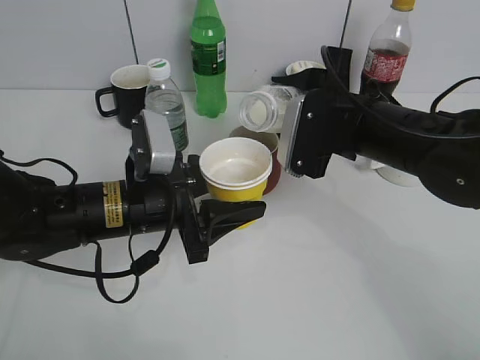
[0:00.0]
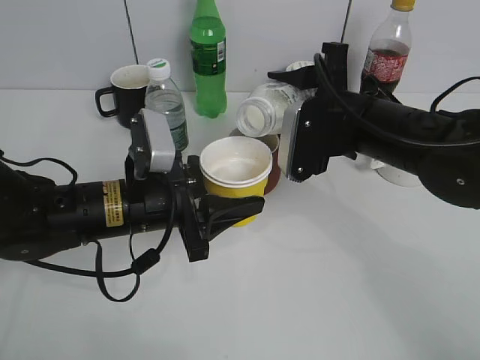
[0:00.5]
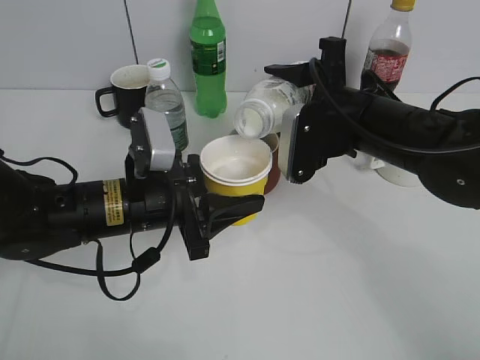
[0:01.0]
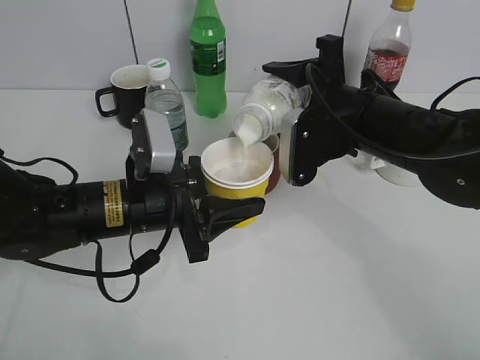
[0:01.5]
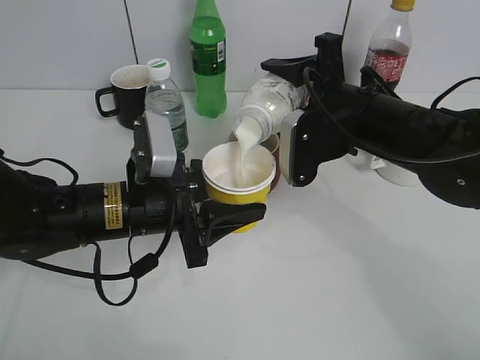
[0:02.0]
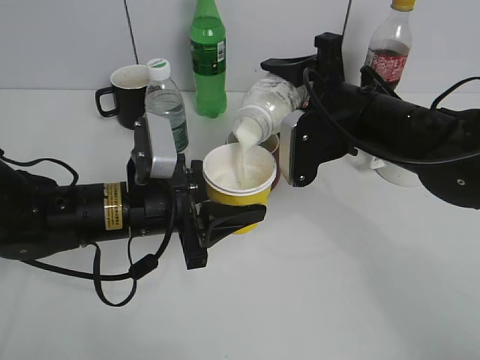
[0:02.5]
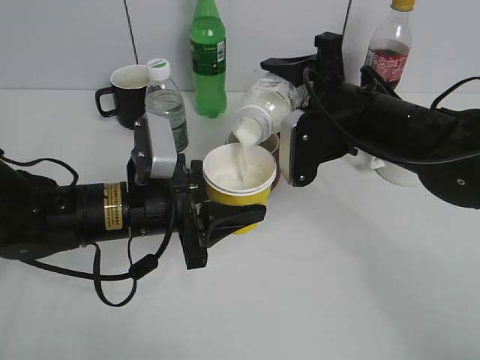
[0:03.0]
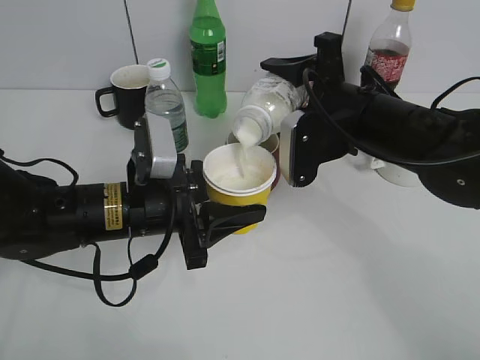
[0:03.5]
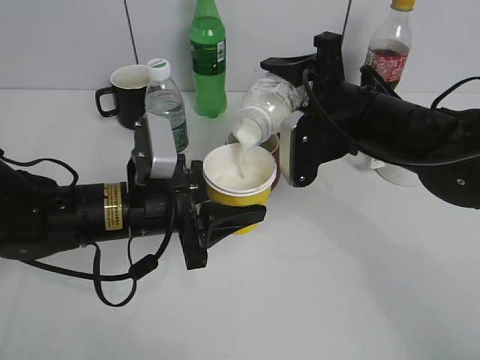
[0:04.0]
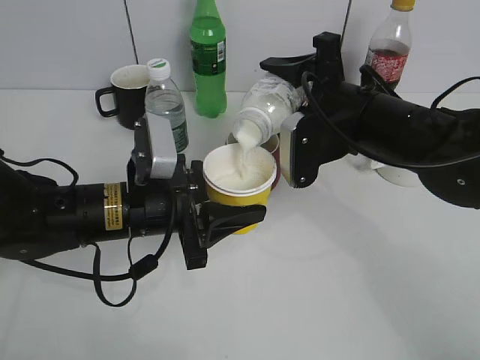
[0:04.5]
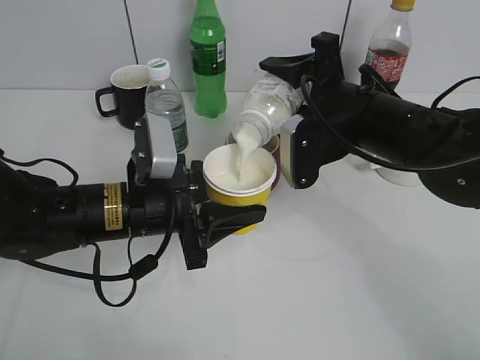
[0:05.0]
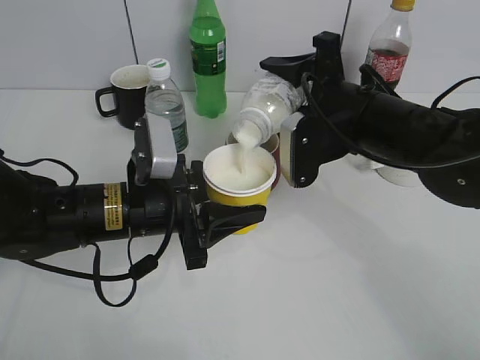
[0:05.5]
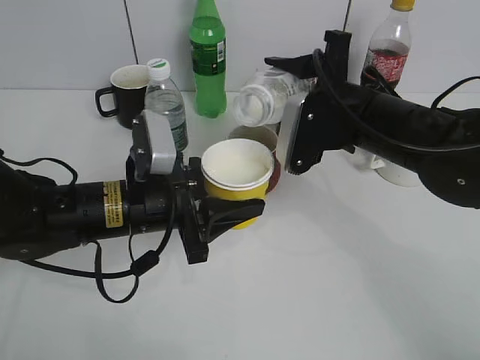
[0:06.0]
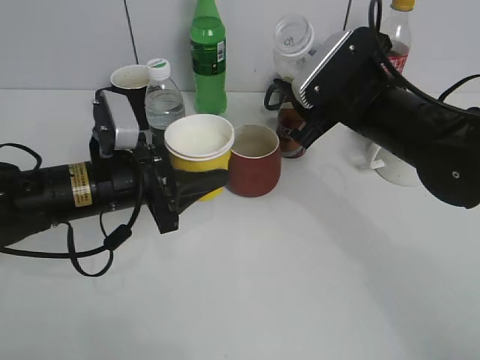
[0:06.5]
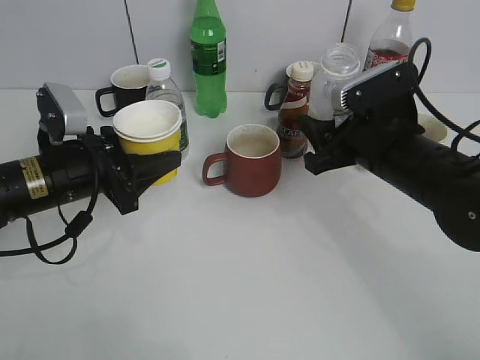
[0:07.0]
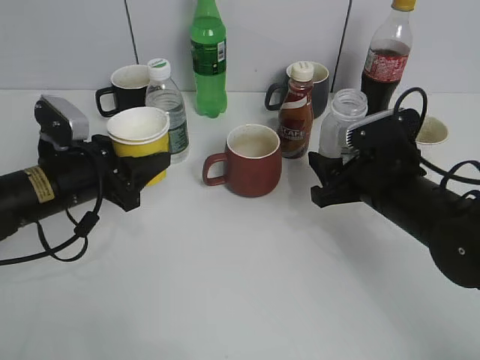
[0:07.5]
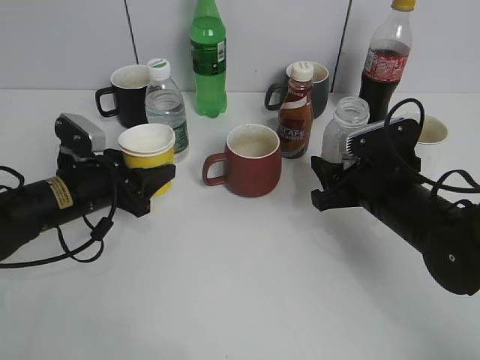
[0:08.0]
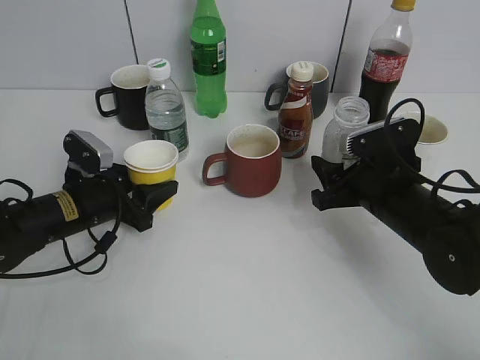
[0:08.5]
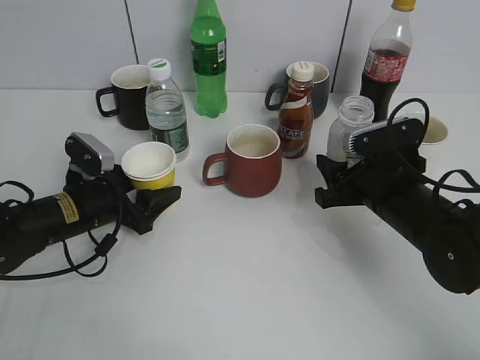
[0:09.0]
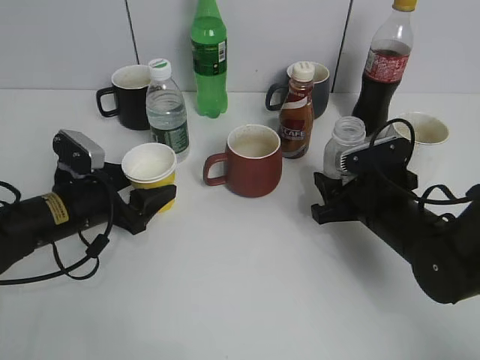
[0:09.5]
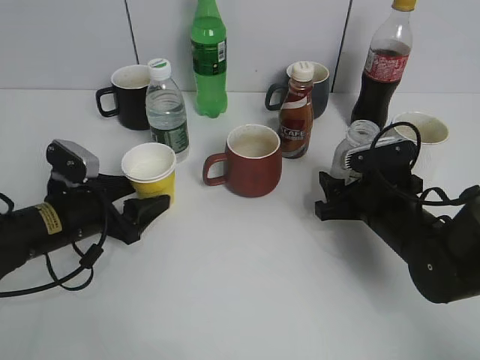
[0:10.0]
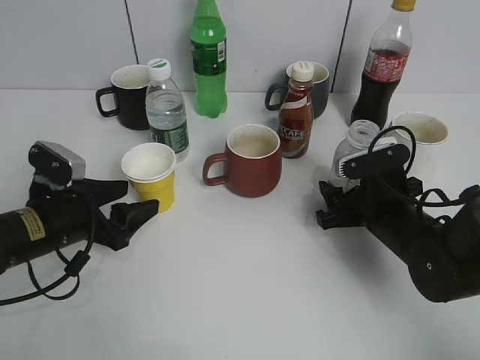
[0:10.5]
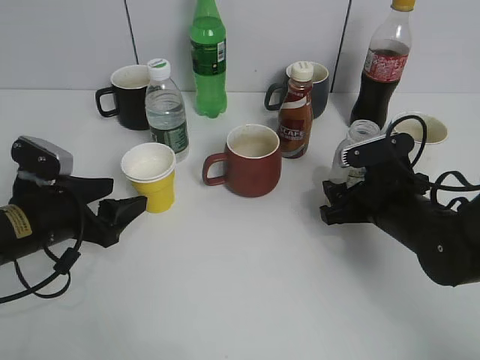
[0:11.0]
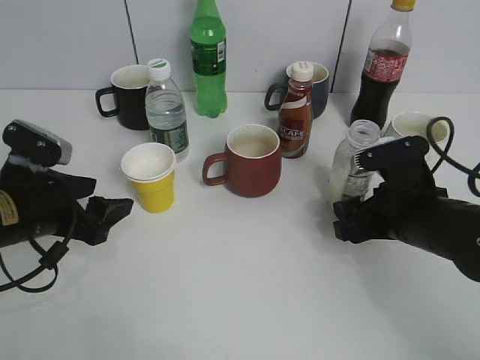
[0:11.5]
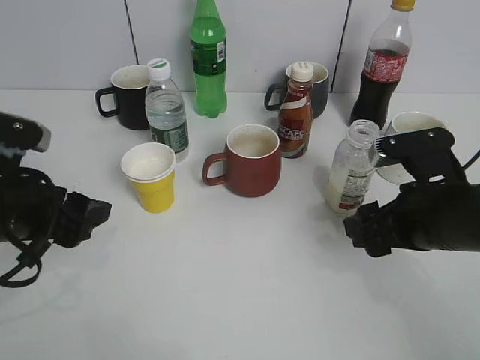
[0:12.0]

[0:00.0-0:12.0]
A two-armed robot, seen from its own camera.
Step, 0:00.0 to 0:05.5: Pour the yuexian Milk from bottle to cup with right gripper.
Step, 0:06.0 to 0:11.5: Place the yuexian Milk bottle on the table with right gripper.
0:02.0 to 0:04.0: Both grippers stay about where they are.
0:04.0 to 0:06.0: The grippers stay close to where they were, moving slightly.
0:06.0 to 0:08.0: The left gripper travels to the left and forward by approximately 10 cm. Meanwhile the right gripper is displaced downward and to the right by about 10 cm.
0:08.0 to 0:10.0: The left gripper opens up. The right gripper opens.
0:10.0 to 0:12.0: The grippers both shift upward and backward by some 10 cm.

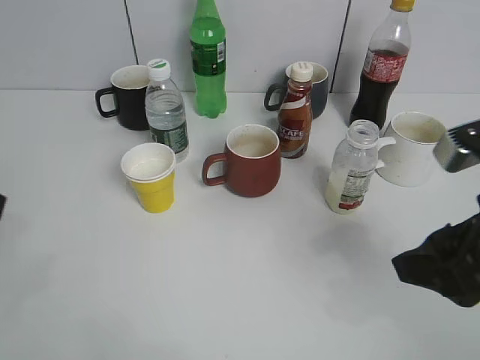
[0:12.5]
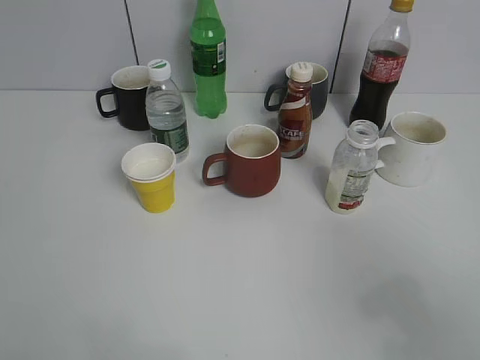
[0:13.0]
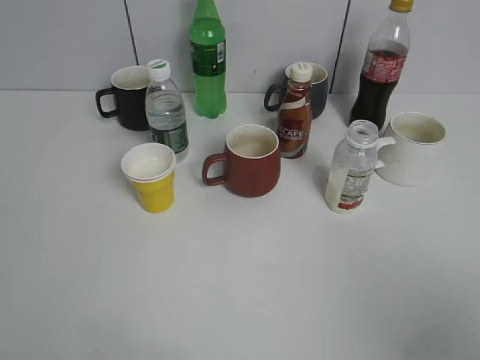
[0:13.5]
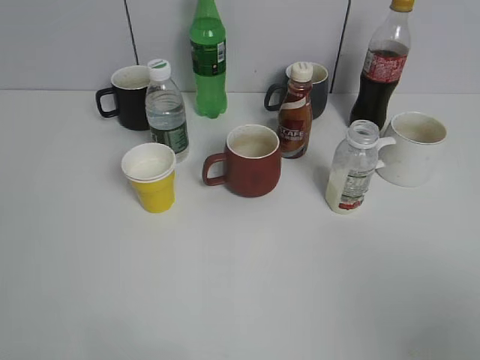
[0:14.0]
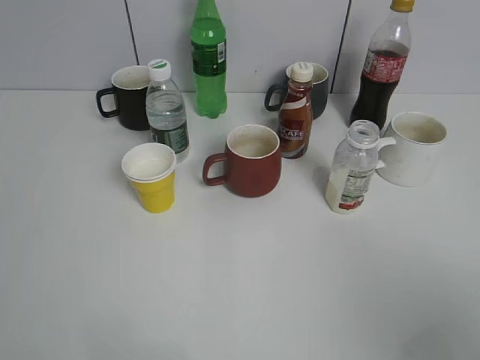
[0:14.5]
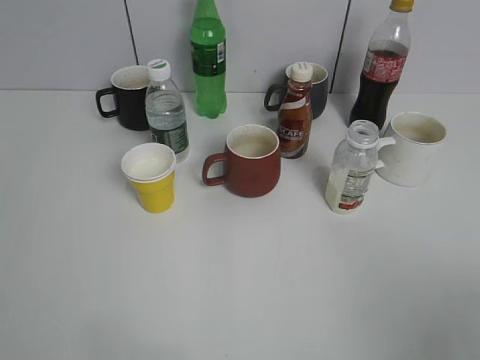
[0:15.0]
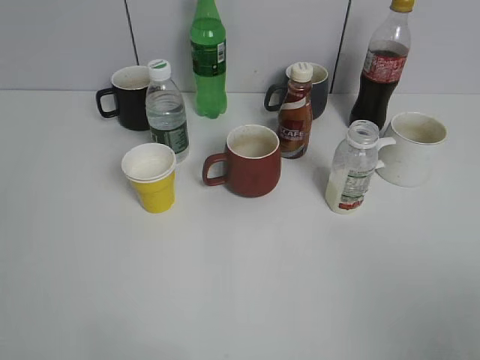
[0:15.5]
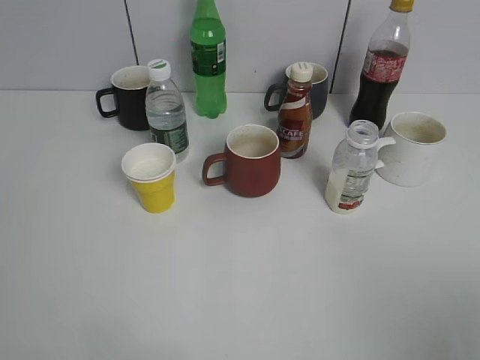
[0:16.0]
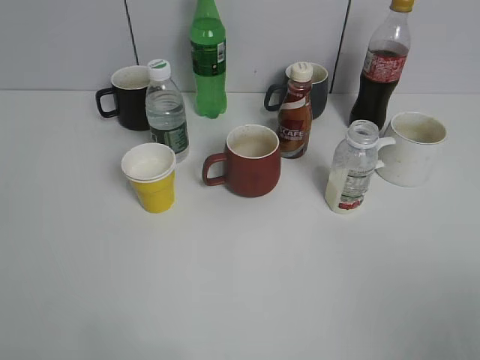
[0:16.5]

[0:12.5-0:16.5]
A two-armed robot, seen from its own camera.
0:12.5 to 0:14.5: The right gripper goes some 20 cm backward, to the right and upward, while the left gripper is displaced backward and to the left by about 15 cm.

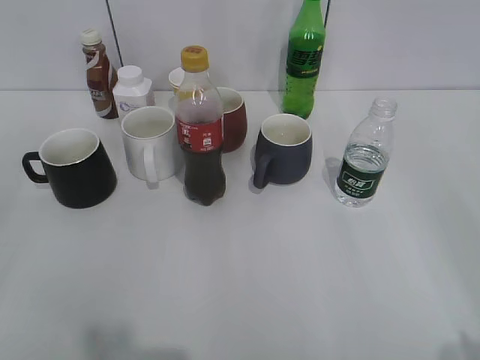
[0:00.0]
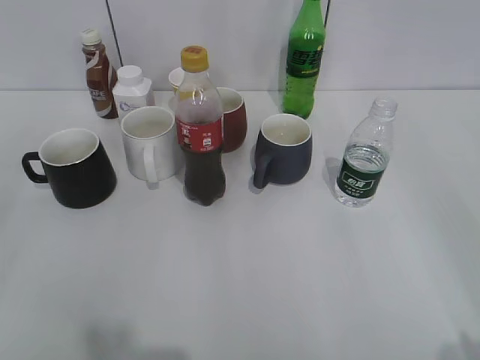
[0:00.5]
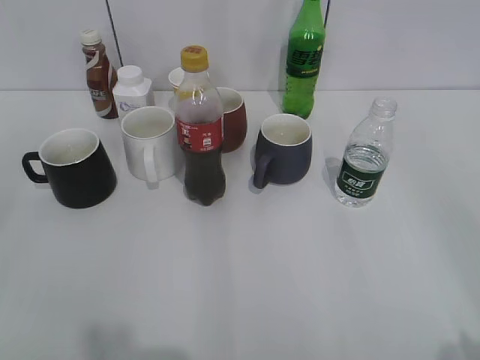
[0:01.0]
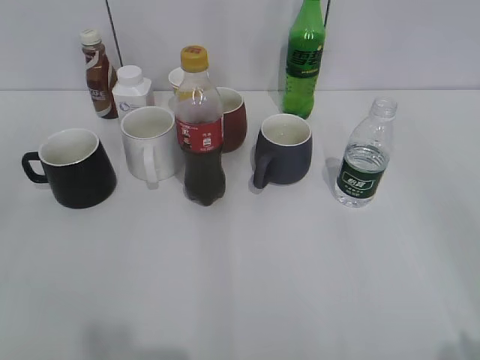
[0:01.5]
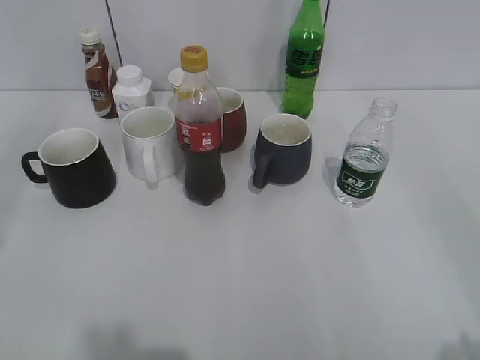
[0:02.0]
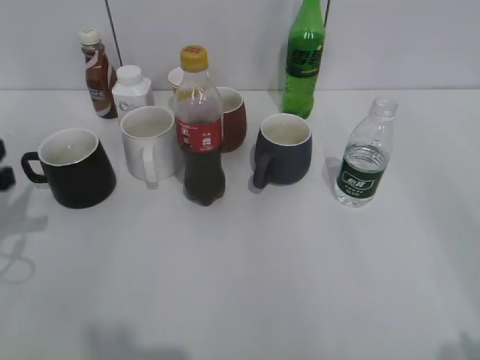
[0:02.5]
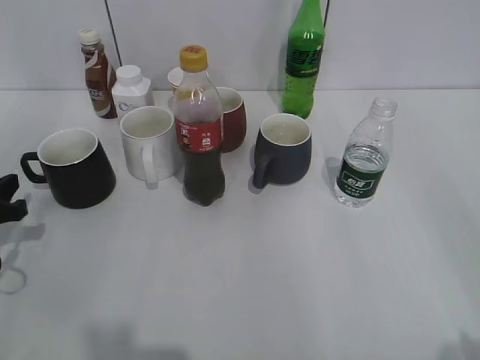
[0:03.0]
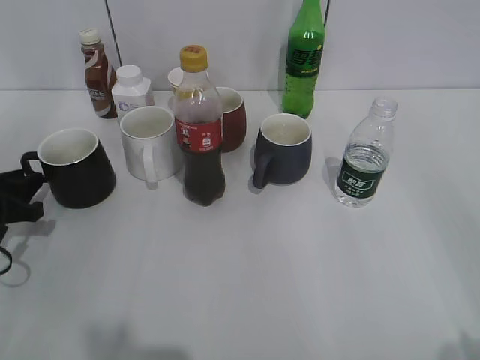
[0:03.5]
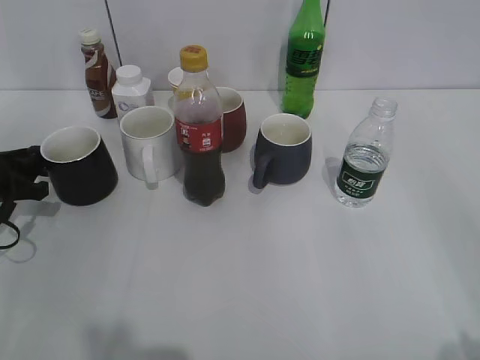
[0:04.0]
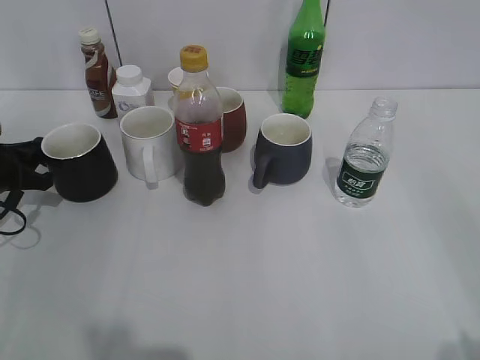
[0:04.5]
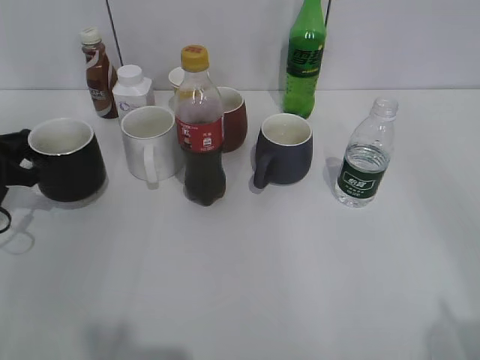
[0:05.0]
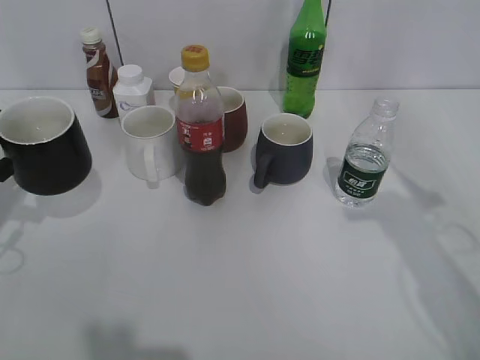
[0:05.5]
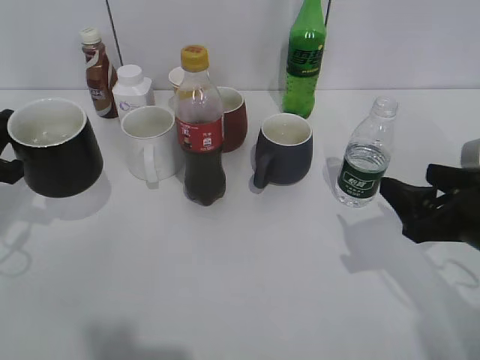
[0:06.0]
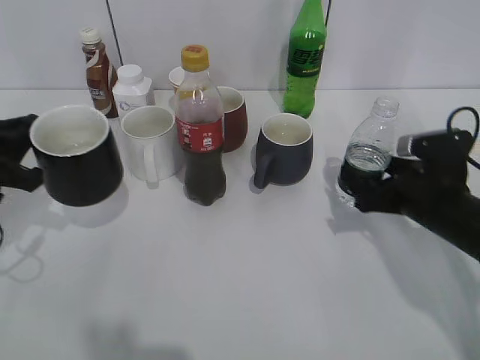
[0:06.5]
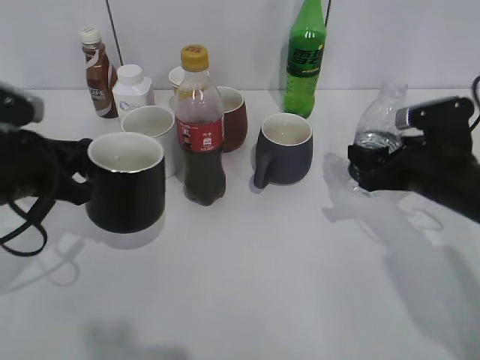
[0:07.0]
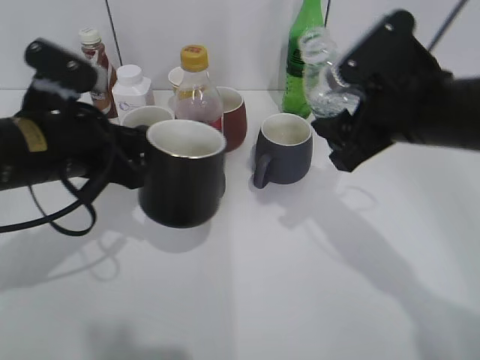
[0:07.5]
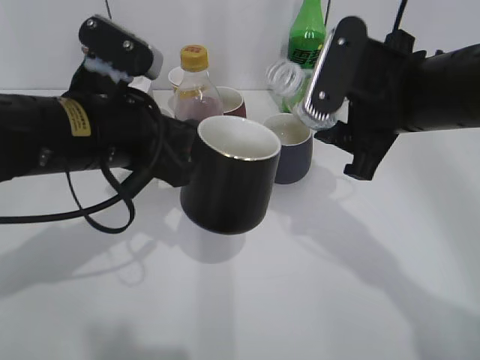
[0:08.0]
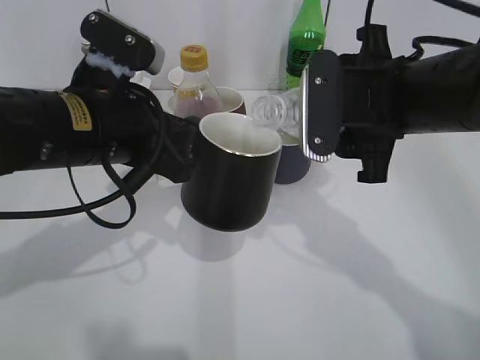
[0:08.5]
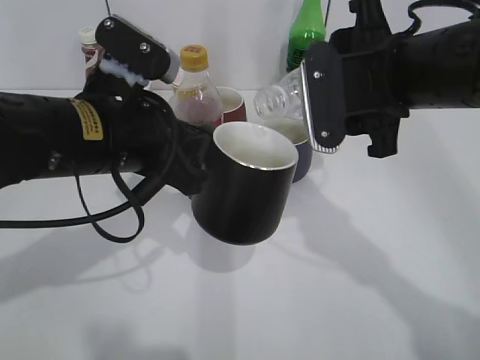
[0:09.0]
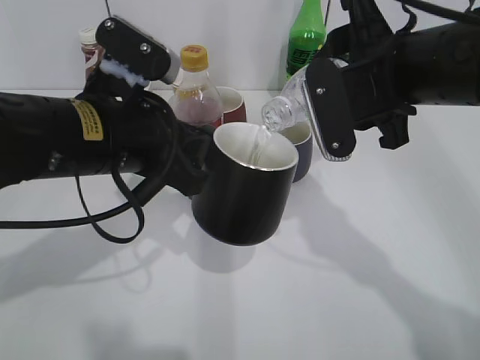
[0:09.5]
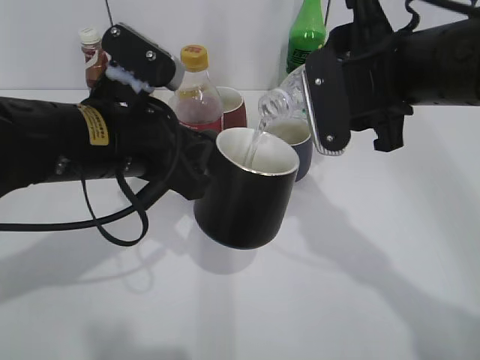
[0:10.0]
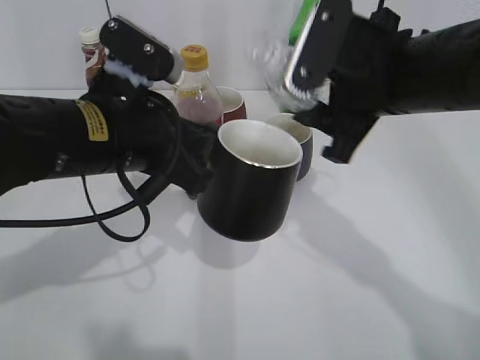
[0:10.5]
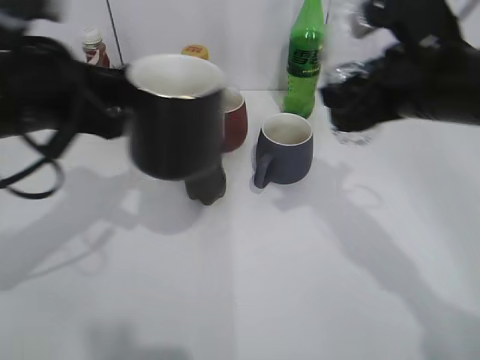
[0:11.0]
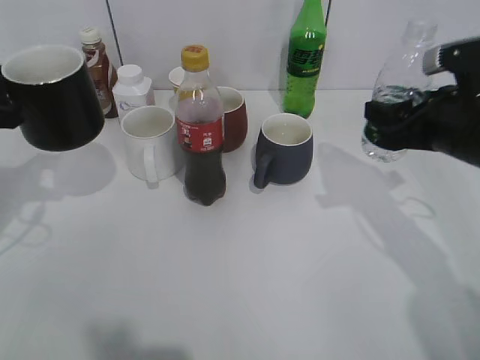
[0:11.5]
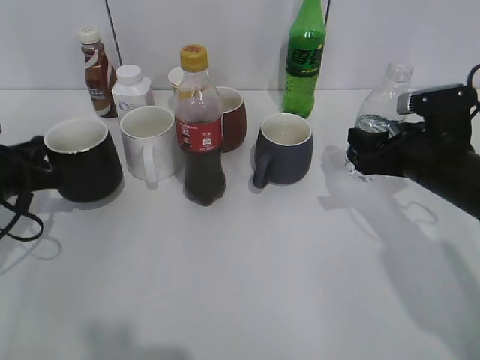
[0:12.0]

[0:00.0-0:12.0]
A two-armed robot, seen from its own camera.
Step, 0:00.0 to 0:04.5: Grasp the black cup with left gripper.
Step, 0:05.0 to 0:05.5: Lift the black cup with left gripper.
Step, 0:06.0 to 0:06.5: Grasp the bottle with water with right gripper.
Step, 0:07.0 to 0:10.0: Pour the water from bottle to cup with right gripper.
0:02.0 to 0:04.0: The left gripper is displaced downward and forward by some 30 cm.
0:04.0 to 0:06.0: The right gripper shifts roughly 25 cm forward and downward. The left gripper moves upward, roughly 10 cm, and closes.
0:06.0 to 0:08.0: The left gripper goes about 20 cm to the right. Meanwhile the right gripper travels to the left, upward and forward by roughly 15 cm, and closes.
0:10.0 to 0:12.0: The left gripper travels to the left and downward by some 20 cm, while the right gripper moves downward and to the right, some 15 cm.
